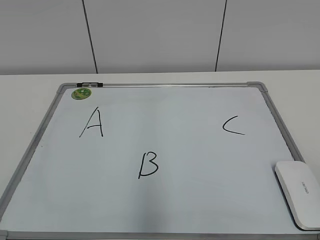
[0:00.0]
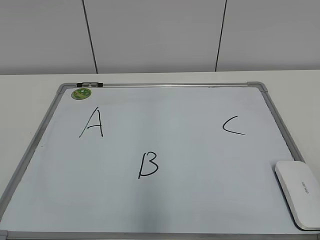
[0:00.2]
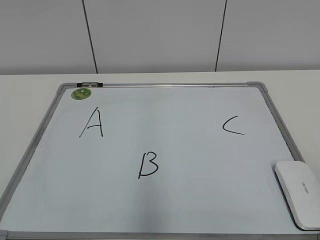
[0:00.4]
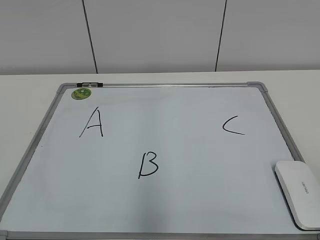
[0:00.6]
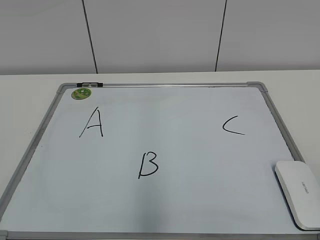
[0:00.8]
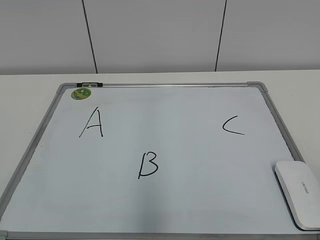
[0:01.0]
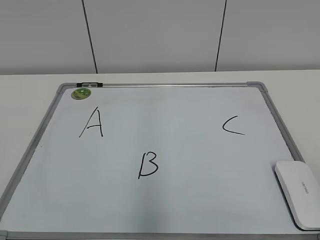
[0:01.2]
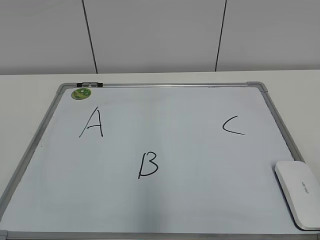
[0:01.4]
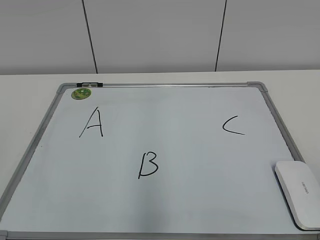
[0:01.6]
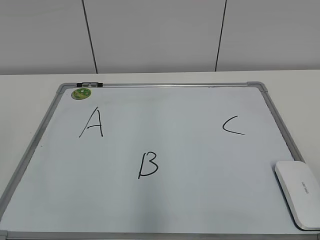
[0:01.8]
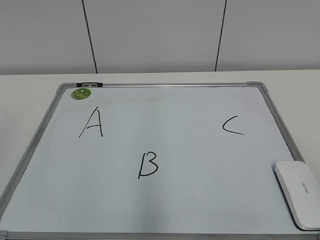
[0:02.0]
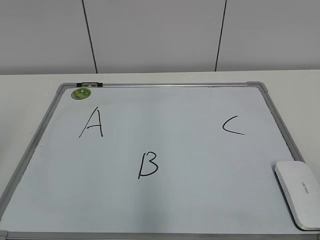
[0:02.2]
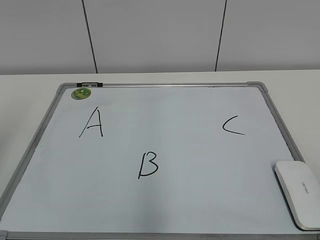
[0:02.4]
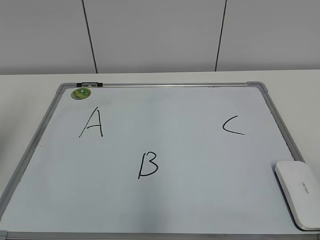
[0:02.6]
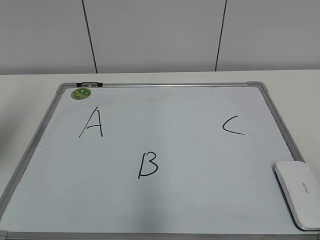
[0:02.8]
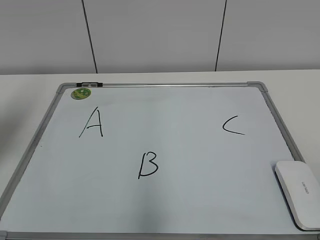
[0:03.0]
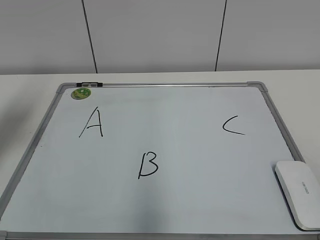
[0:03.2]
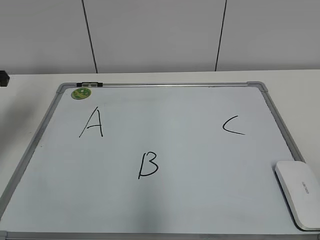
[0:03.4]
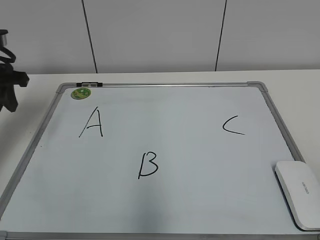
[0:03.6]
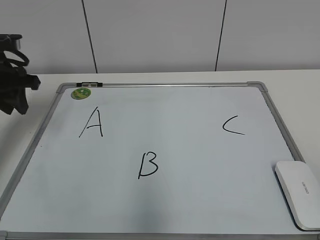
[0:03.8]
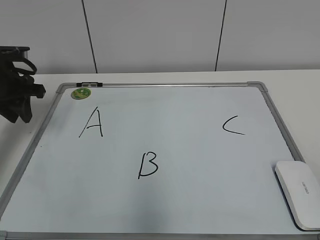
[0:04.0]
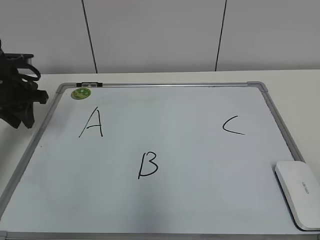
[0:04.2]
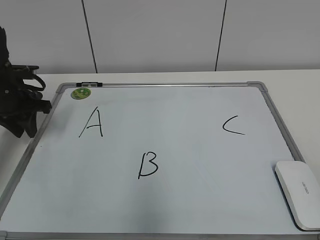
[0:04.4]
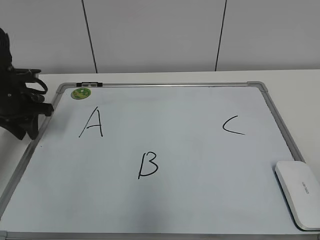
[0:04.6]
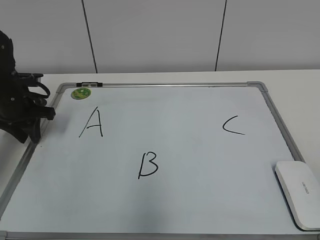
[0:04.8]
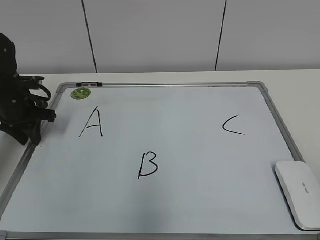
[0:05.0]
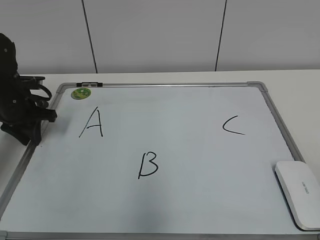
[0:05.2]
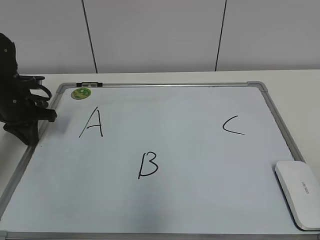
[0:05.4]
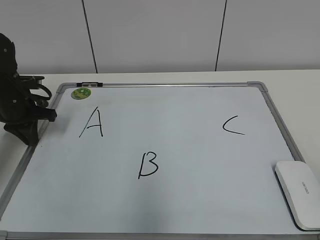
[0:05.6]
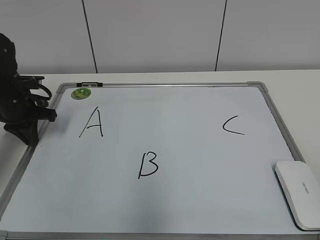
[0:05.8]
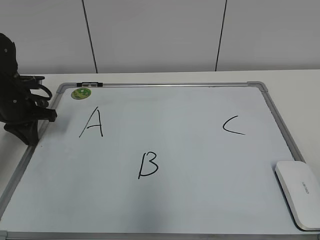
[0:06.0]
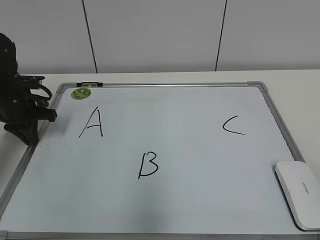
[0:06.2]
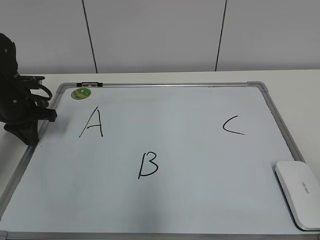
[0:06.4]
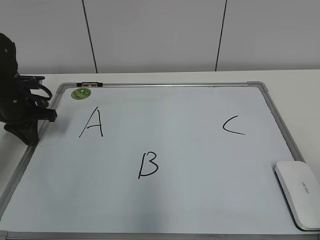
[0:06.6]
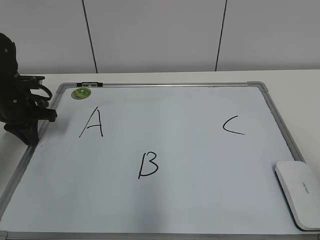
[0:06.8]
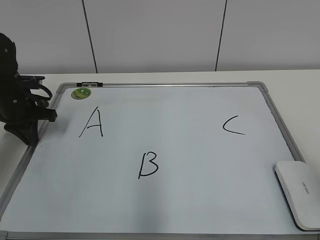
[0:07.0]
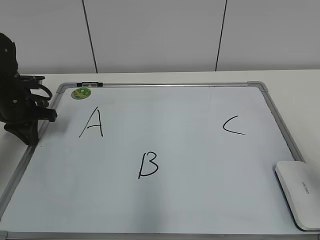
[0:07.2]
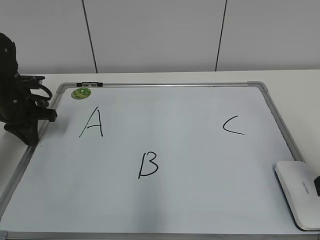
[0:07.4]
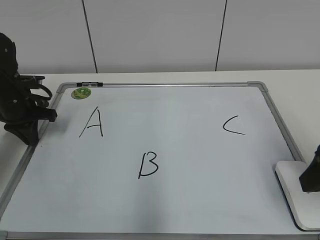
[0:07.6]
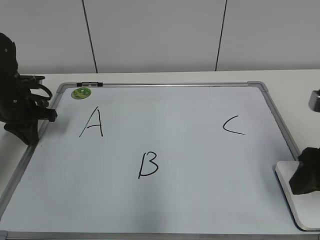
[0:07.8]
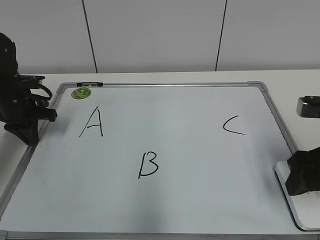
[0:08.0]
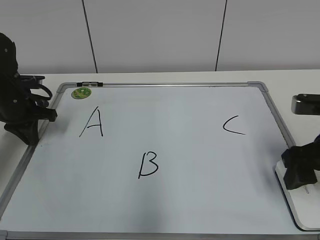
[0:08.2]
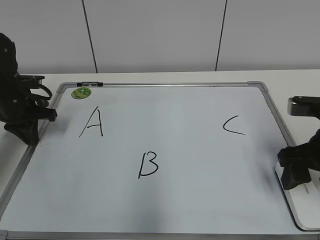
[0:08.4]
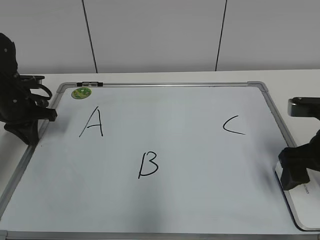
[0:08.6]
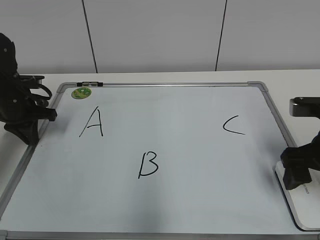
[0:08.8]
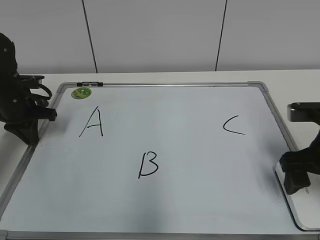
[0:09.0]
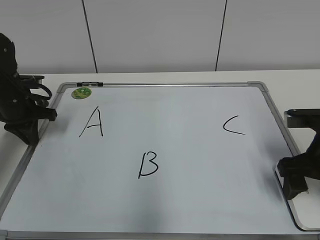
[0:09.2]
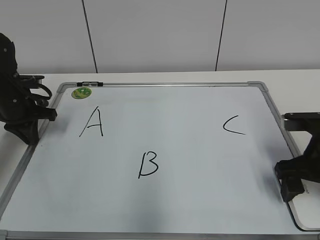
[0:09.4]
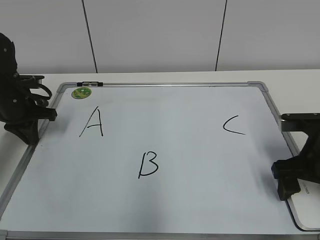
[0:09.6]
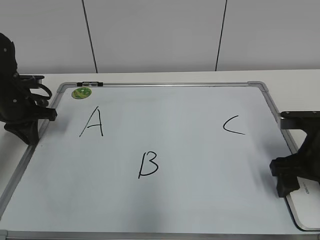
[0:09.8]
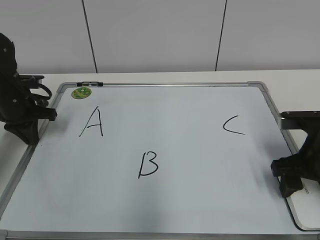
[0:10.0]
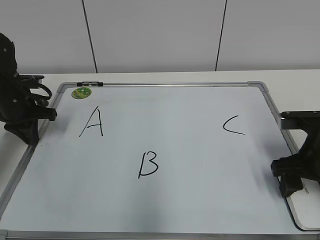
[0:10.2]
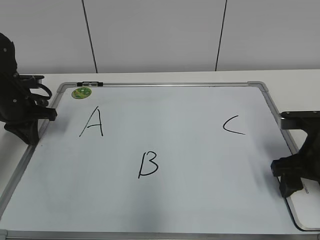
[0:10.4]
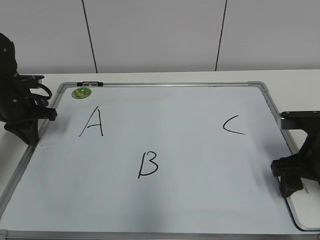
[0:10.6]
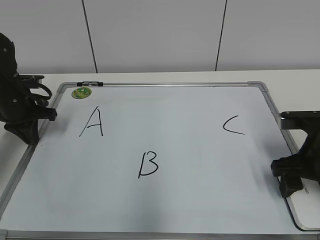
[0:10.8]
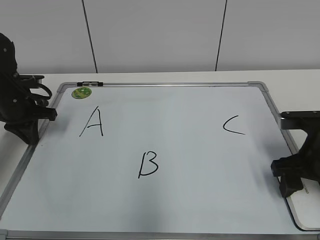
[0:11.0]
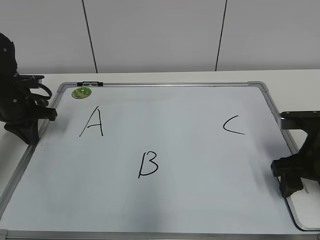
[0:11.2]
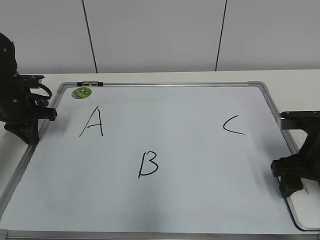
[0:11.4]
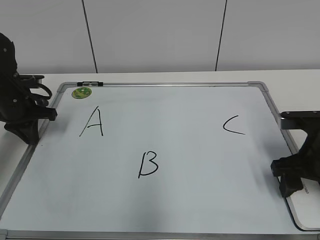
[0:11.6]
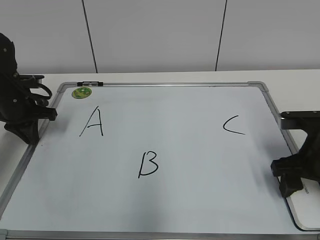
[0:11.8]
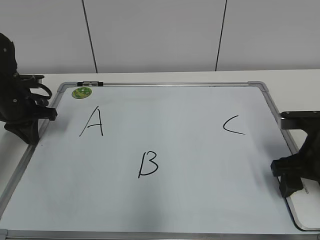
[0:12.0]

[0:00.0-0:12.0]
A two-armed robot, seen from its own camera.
Task of the whole recording: pick up the eraser on the blackboard and erase the letter "B".
Step, 0:00.0 to 0:05.2: Hold the drawing board steady with your left hand.
Step, 0:05.4 to 0:11.8: Grab the eraser with your right hand.
0:01.6 to 0:03.0: The left gripper travels forward by roughly 25 cm.
0:03.0 to 0:04.4: The left gripper is displaced downward and forward by about 15 cm.
0:04.4 to 0:06.0: The left gripper closes.
0:06.0 to 0:07.6: The right gripper travels forward by approximately 20 cm.
0:07.6 to 0:09.0: The right gripper shifts roughly 10 cm downward and forward, and opens its fingers.
0:09.0 to 0:10.4: The right gripper closes its fingers.
0:10.4 to 0:12.0: The two grippers keep their place.

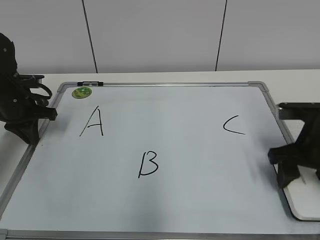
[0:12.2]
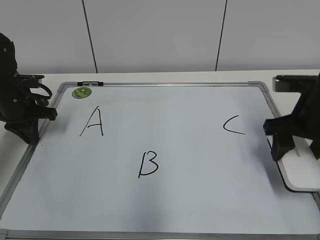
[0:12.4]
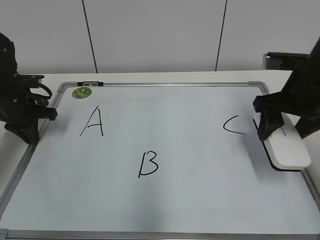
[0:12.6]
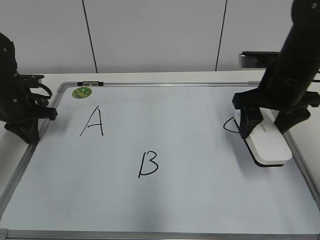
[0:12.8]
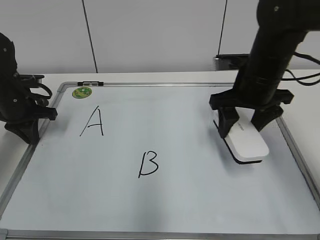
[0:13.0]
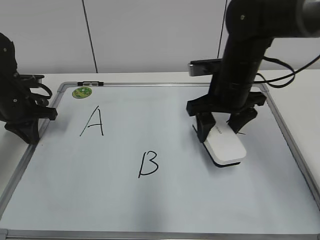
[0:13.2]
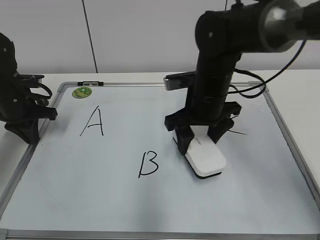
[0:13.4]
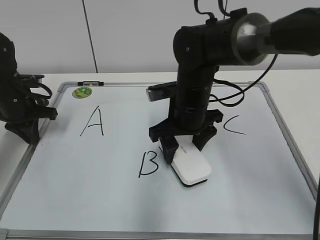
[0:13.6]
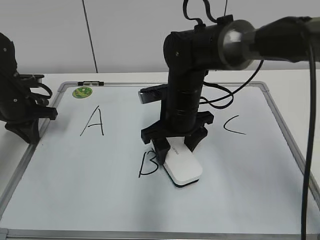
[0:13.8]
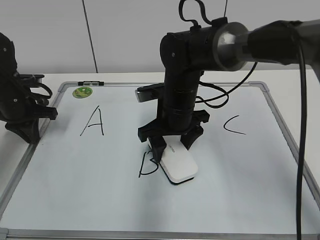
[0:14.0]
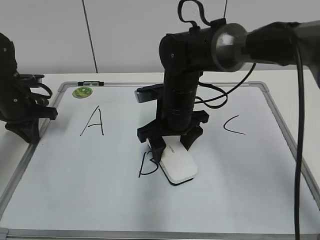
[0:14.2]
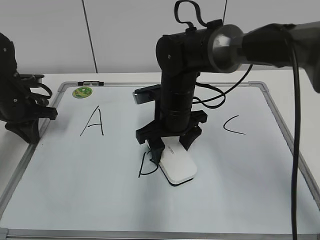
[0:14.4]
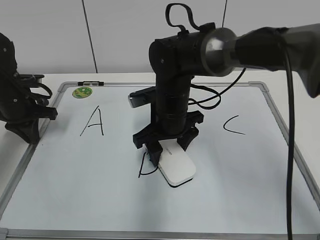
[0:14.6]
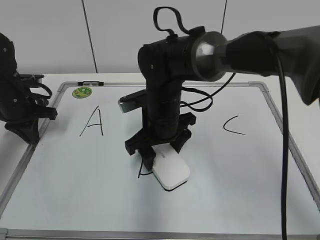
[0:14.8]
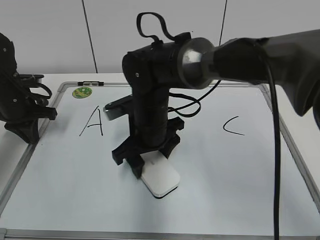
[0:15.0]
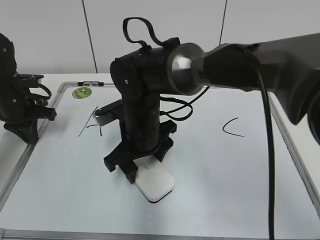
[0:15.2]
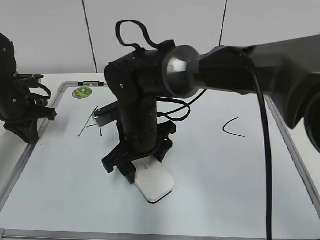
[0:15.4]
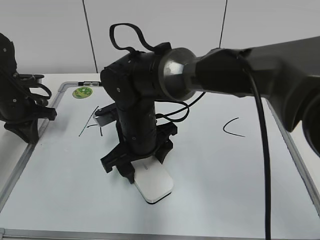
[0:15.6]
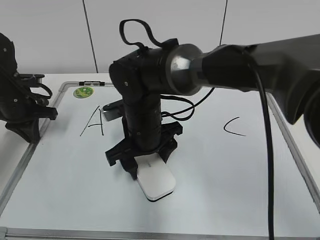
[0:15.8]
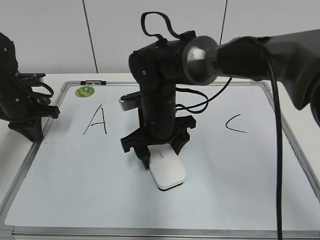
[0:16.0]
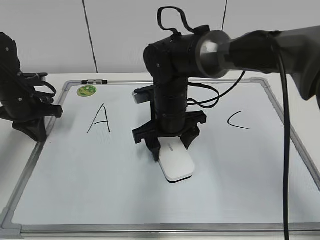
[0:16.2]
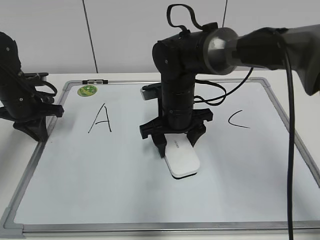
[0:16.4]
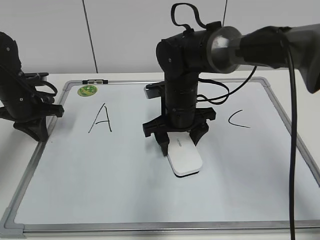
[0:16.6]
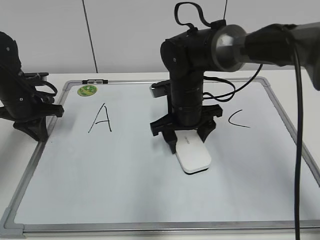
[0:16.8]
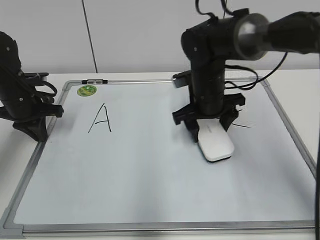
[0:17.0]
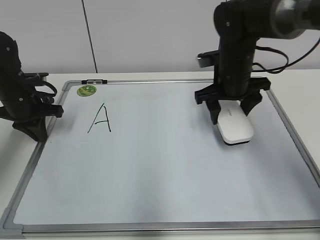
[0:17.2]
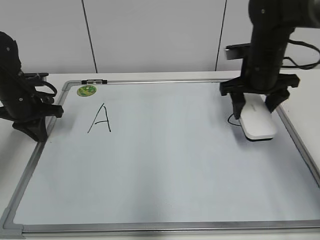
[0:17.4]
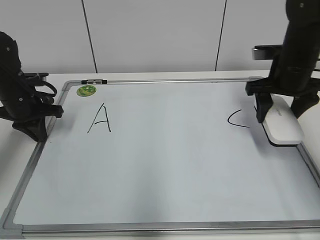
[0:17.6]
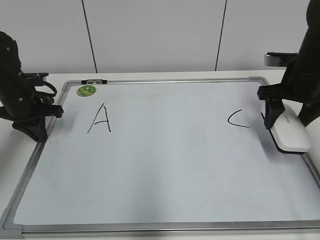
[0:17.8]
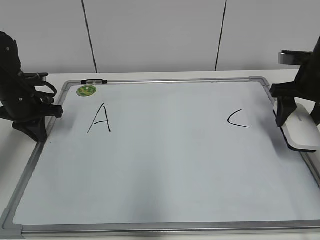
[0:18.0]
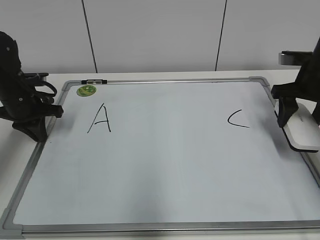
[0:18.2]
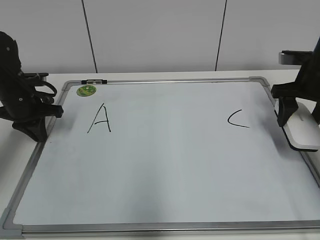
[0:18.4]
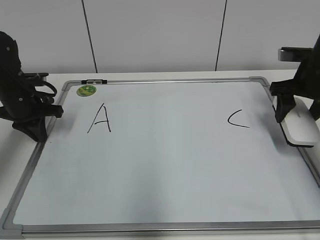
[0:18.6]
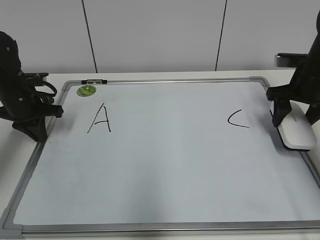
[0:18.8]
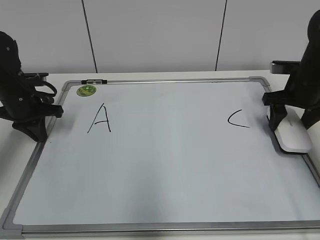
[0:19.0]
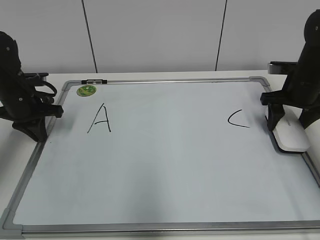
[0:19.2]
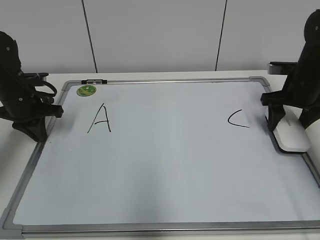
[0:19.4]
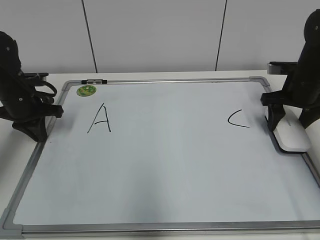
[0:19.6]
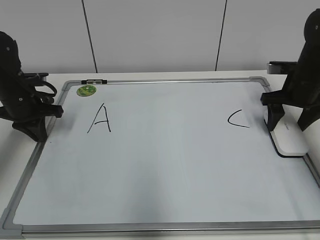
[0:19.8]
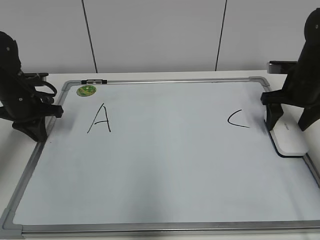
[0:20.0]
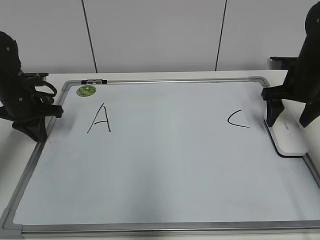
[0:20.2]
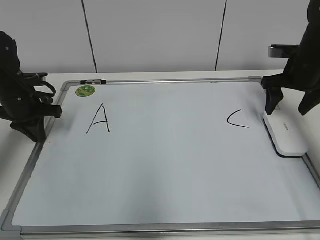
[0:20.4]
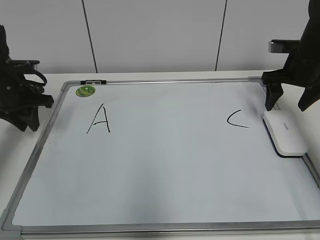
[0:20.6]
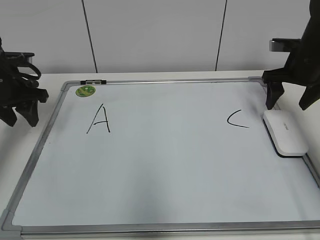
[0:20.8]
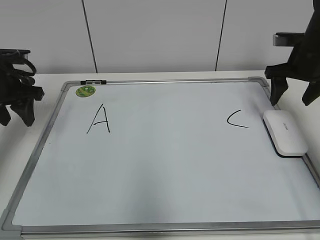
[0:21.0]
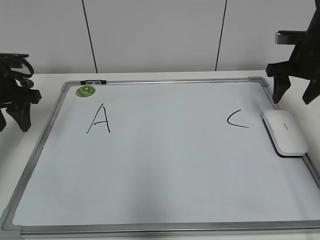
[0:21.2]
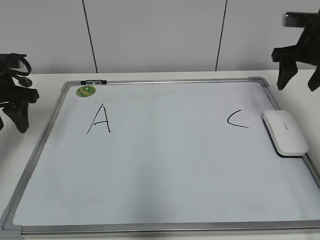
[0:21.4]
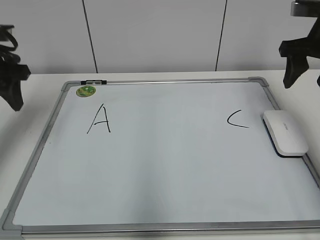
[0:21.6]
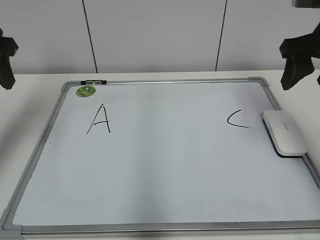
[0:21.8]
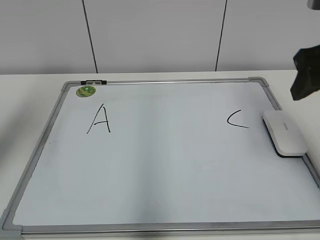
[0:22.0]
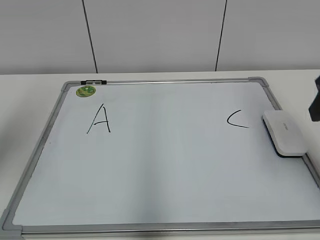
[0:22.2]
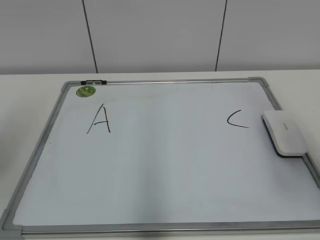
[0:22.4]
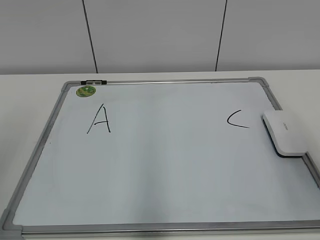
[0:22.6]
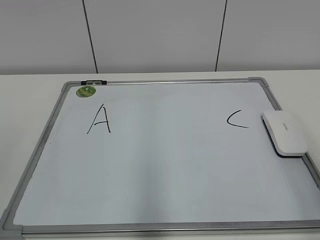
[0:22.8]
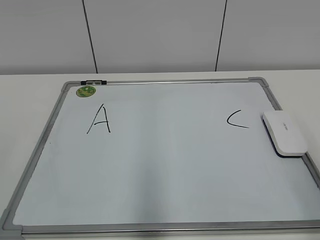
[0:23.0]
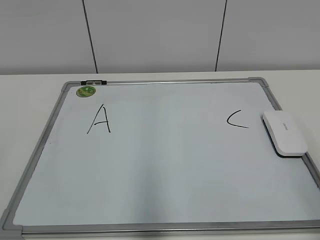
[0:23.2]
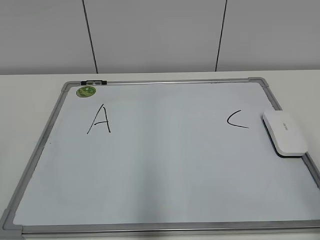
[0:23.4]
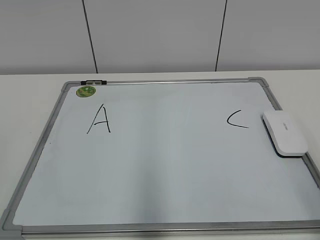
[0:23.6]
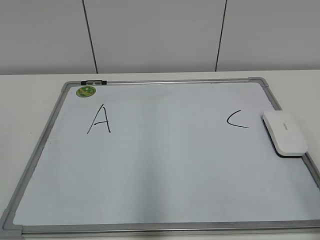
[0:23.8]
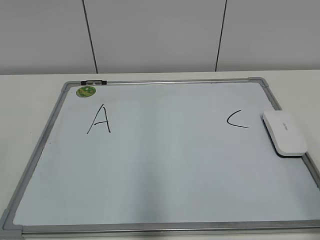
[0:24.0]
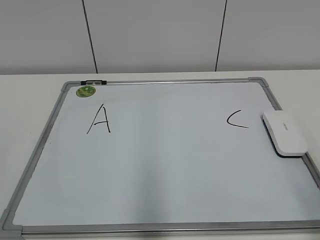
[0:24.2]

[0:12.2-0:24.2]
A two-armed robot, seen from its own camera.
Task of the whole recording: pick up the eraser on the blackboard and erase the letter "B".
Step, 0:12.2 to 0:16.8: Erase the letter B with your right hand.
Step, 0:17.0 to 0:19.8: Put down the eraser with your right hand.
0:12.2 to 0:13.8: The right gripper heads to the left and forward, covering about 20 cm.
0:13.8 to 0:15.2: The right gripper goes approximately 5 cm to the left.
0:15.2 to 0:16.6: The right gripper is displaced to the right and forward by roughly 10 cm.
0:16.6 to 0:18.2: The right gripper moves to the right, roughly 25 cm.
0:18.2 to 0:19.8: There are only small adjustments of the grippers.
0:19.8 to 0:21.2: The two grippers go some 5 cm upward. The right gripper opens, then closes once more. Meanwhile the left gripper opens up.
0:21.2 to 0:22.6: The left gripper travels backward and upward by some 30 cm, while the right gripper travels backward by some 30 cm.
0:22.6 to 0:24.2: The right gripper shifts roughly 10 cm backward.
